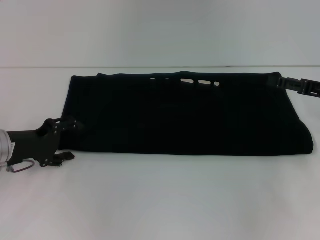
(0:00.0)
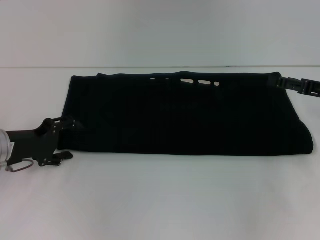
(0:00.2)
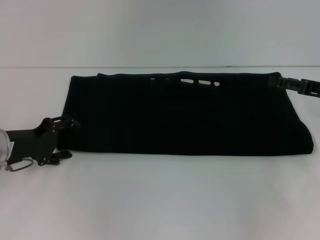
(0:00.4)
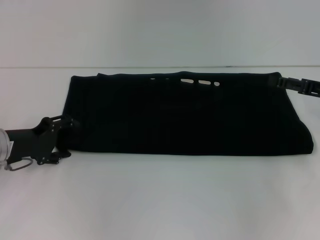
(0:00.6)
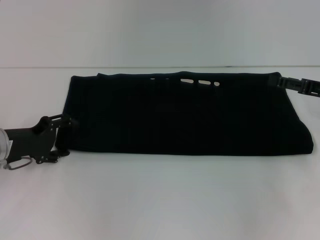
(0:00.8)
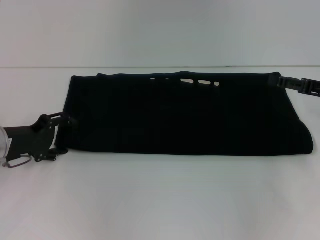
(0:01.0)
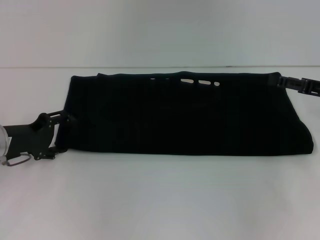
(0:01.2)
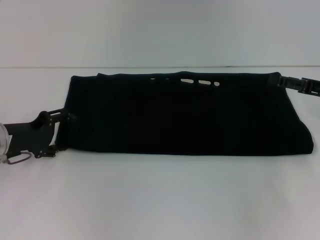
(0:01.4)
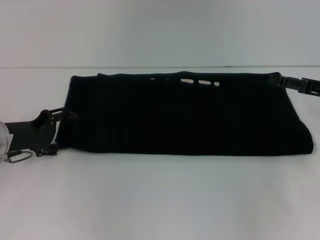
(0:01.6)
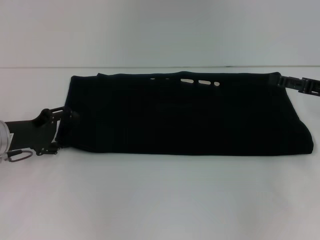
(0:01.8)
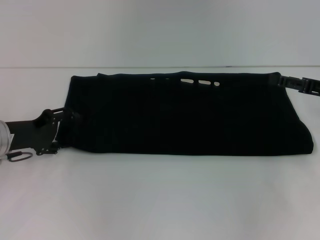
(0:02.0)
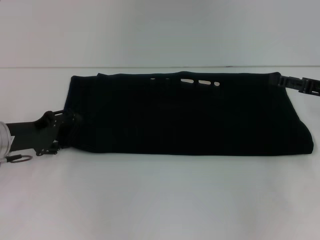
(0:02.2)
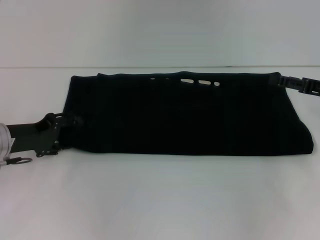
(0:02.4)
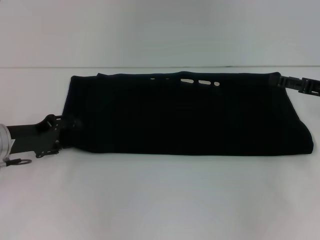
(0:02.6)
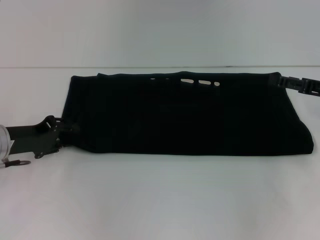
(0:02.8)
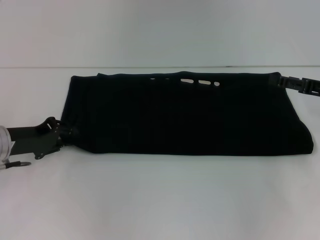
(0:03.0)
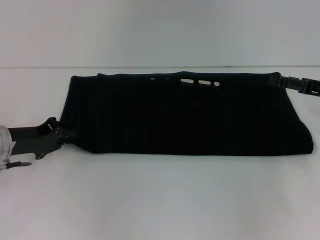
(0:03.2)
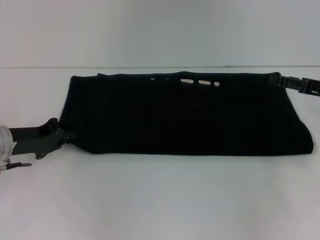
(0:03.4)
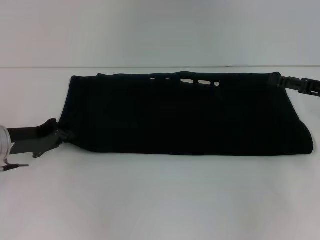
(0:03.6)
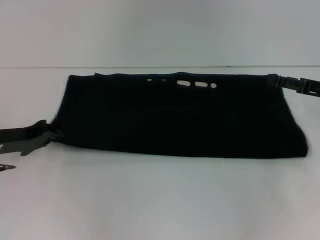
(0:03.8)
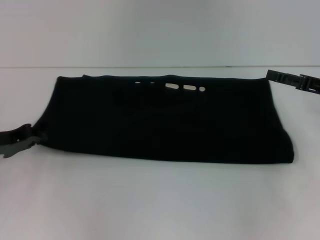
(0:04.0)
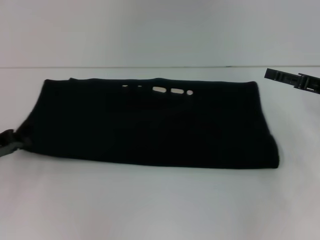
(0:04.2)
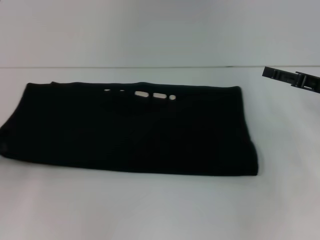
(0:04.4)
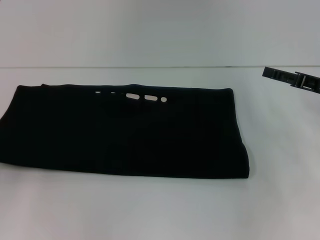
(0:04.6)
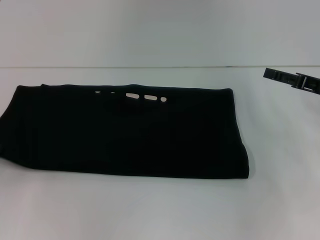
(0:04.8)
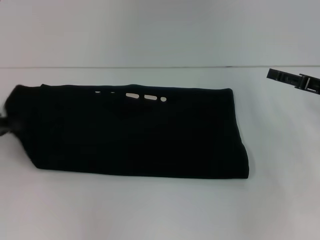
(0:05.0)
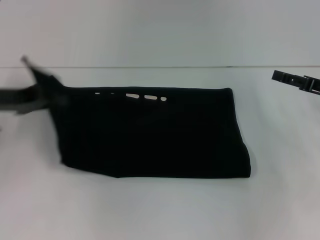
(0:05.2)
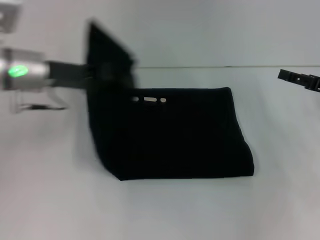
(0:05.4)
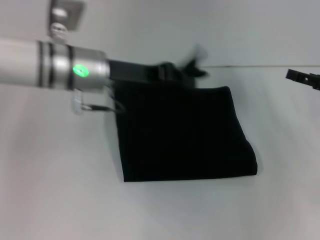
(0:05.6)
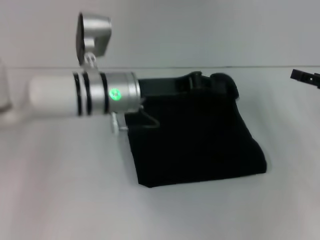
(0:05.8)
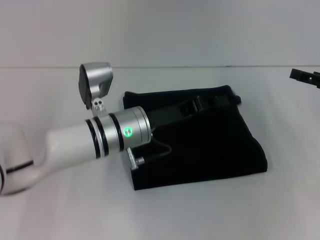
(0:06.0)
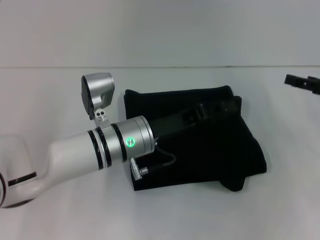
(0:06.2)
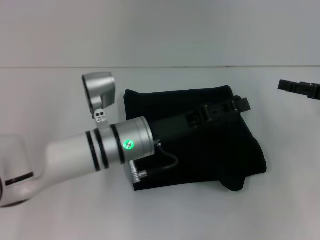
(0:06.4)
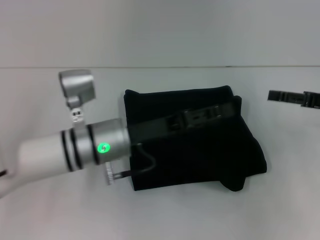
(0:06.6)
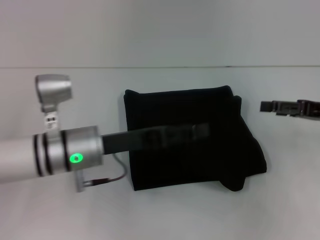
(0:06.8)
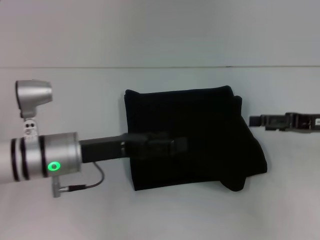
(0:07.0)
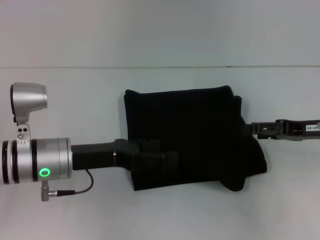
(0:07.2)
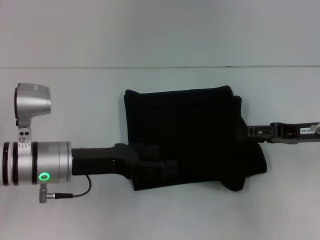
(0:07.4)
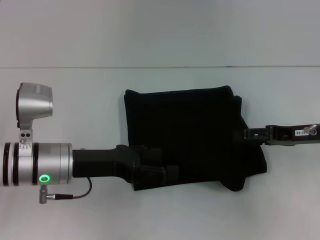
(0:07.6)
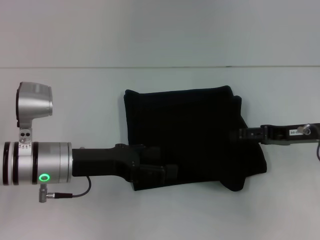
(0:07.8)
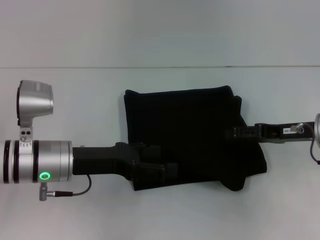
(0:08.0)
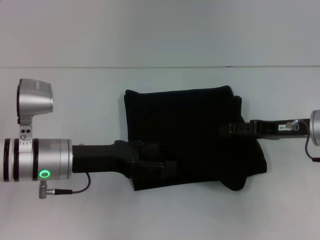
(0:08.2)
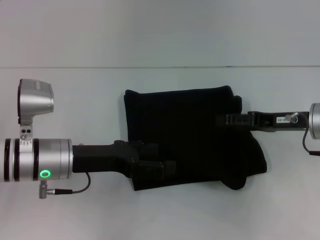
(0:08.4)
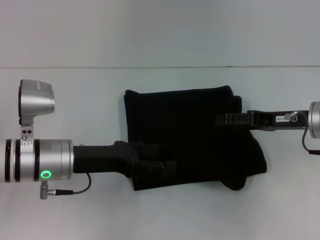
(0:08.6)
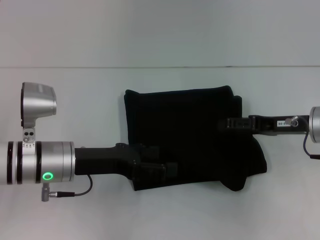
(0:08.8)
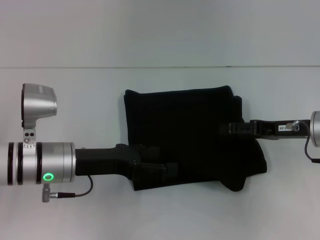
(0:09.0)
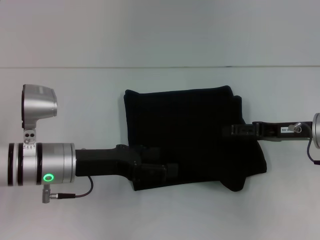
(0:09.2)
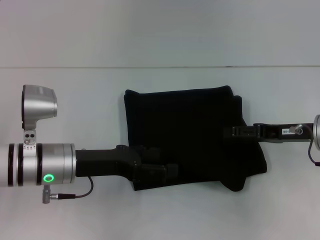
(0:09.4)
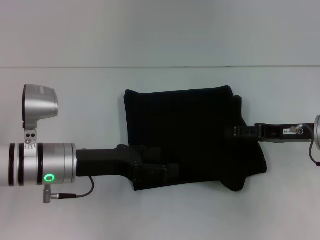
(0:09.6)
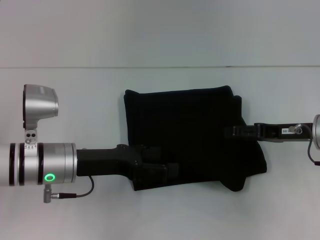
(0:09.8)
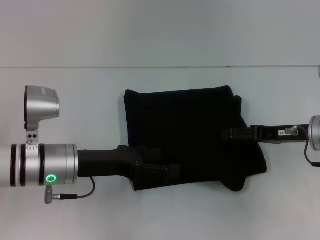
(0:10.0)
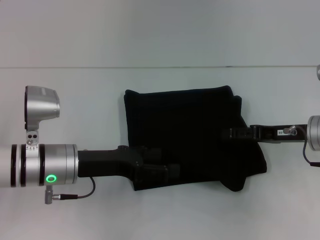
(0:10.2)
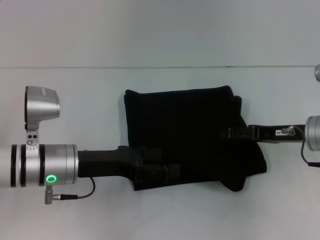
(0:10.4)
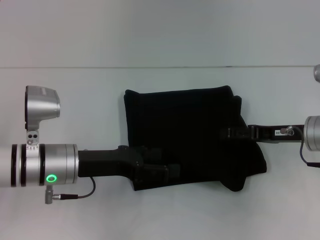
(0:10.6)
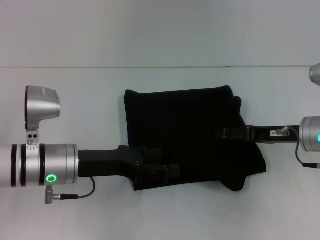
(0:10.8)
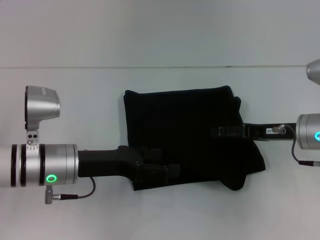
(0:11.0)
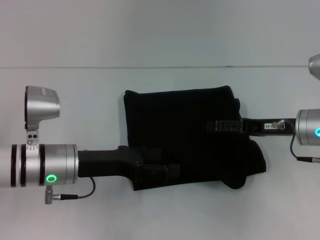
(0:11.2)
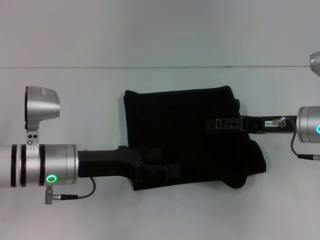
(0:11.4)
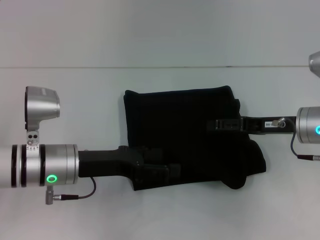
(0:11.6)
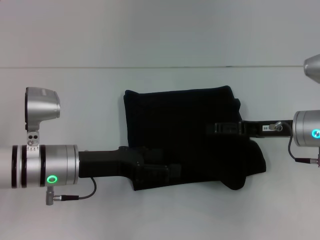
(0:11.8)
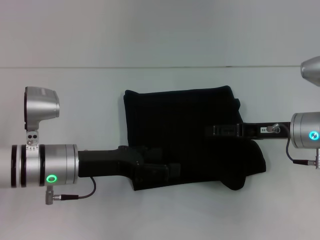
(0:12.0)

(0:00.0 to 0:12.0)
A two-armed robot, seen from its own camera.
Step, 0:00.0 - 0:06.4: Fold the clothes with your left hand.
0:00.0 - 0:01.6: The two grippers keep their place.
0:01.6 - 0:03.0: The grippers stay close to where they were, moving slightly.
0:03.0 - 0:04.4: The left gripper shifts roughly 10 cm to the left, and closes.
0:04.4 - 0:06.0: The left gripper goes some 30 cm to the right.
0:06.0 - 0:07.6: The left gripper moves to the left, roughly 10 cm, and opens. Meanwhile the right gripper shifts approximately 5 cm to the left.
0:07.6 - 0:09.0: There are only small adjustments of the grippers.
0:09.0 - 0:10.4: Both grippers stay about where they are.
0:10.4 - 0:12.0: There are only small adjustments of the grippers.

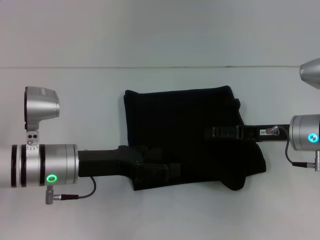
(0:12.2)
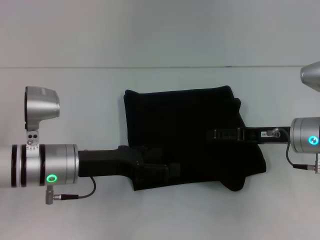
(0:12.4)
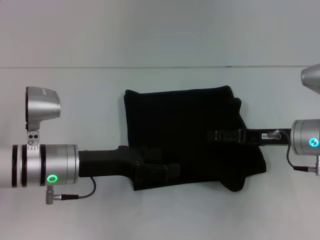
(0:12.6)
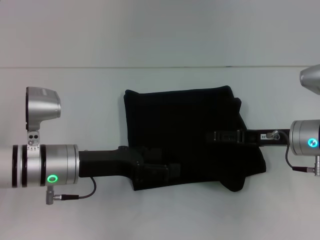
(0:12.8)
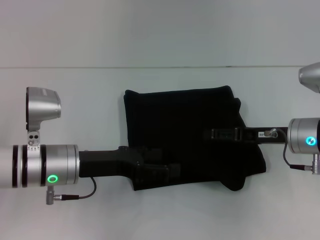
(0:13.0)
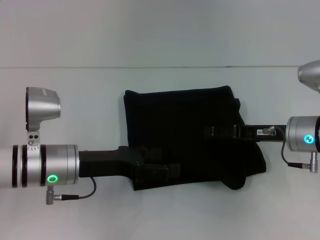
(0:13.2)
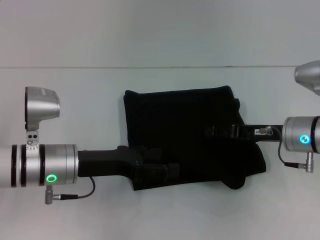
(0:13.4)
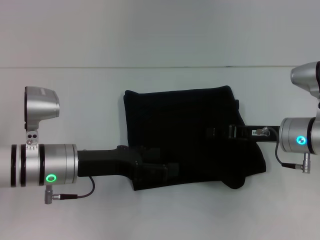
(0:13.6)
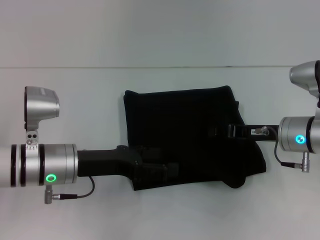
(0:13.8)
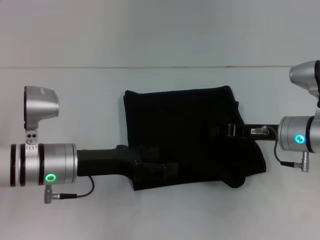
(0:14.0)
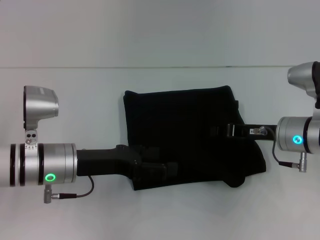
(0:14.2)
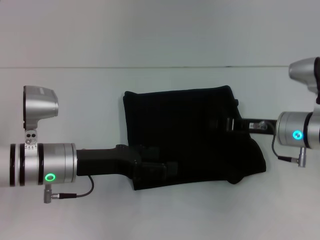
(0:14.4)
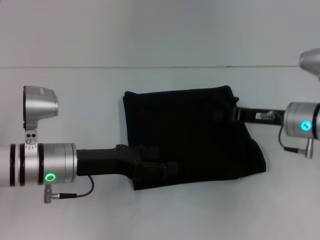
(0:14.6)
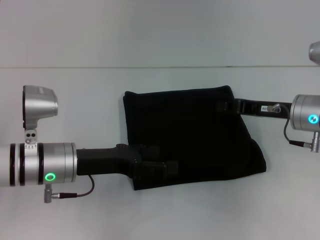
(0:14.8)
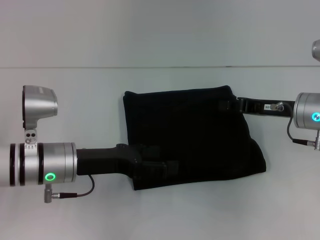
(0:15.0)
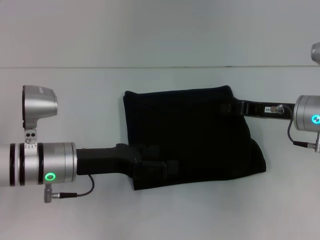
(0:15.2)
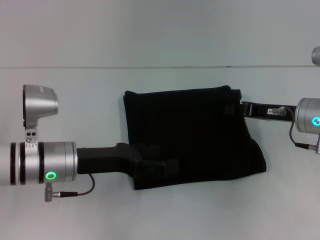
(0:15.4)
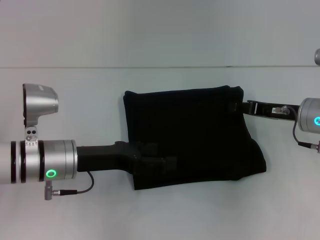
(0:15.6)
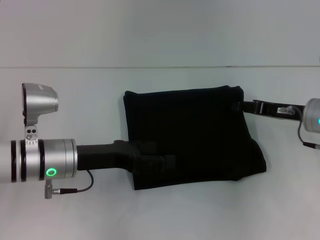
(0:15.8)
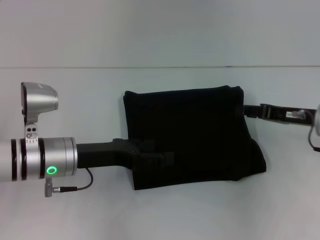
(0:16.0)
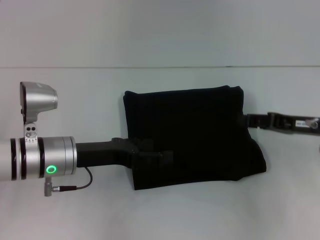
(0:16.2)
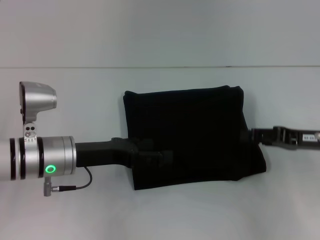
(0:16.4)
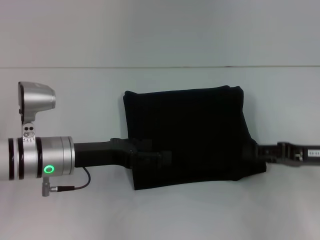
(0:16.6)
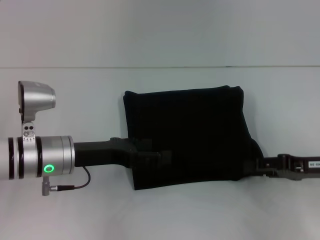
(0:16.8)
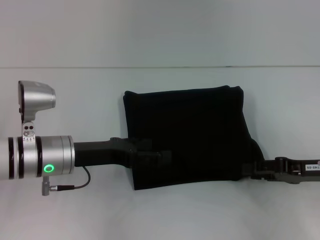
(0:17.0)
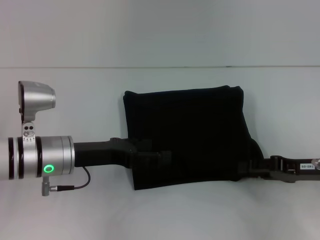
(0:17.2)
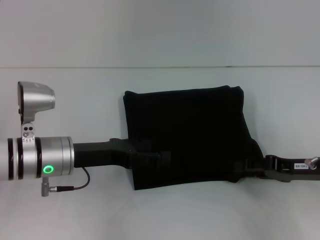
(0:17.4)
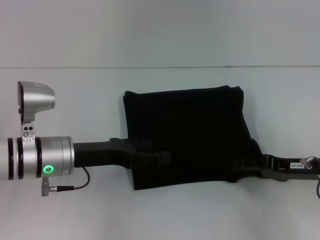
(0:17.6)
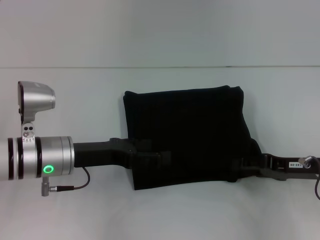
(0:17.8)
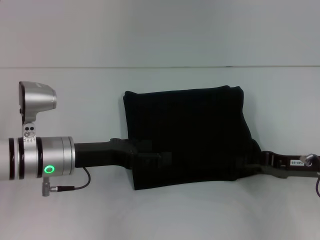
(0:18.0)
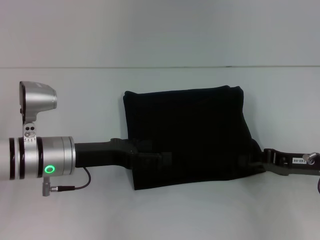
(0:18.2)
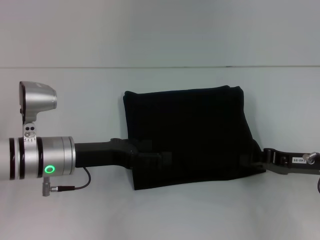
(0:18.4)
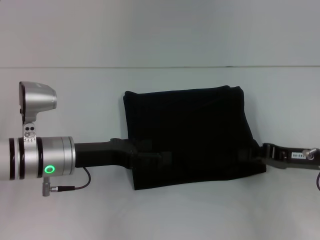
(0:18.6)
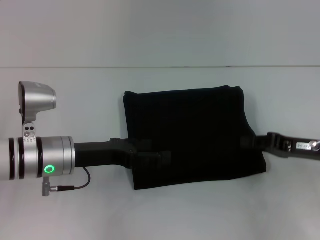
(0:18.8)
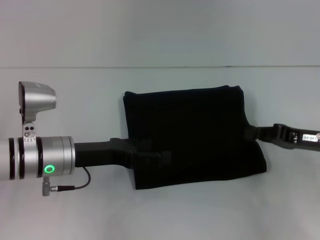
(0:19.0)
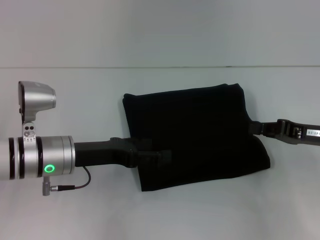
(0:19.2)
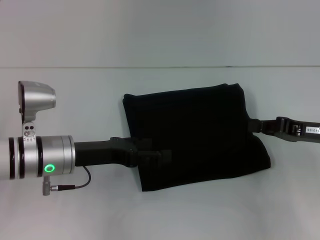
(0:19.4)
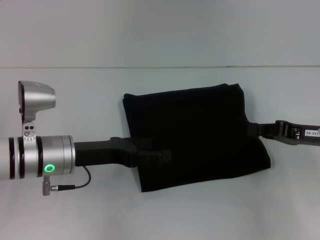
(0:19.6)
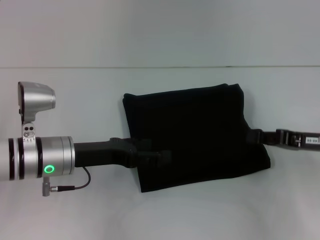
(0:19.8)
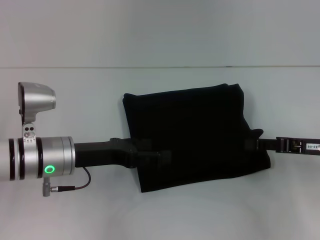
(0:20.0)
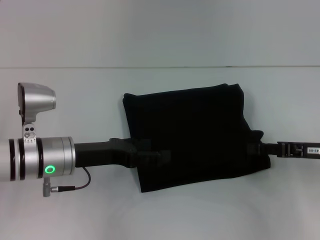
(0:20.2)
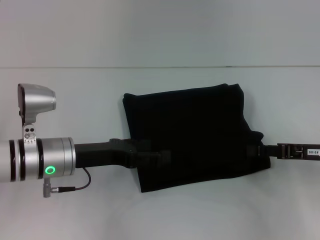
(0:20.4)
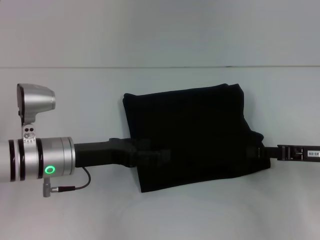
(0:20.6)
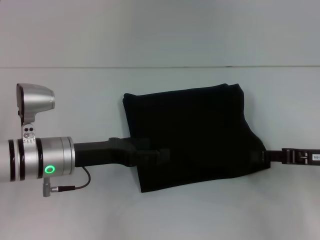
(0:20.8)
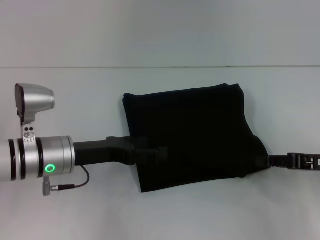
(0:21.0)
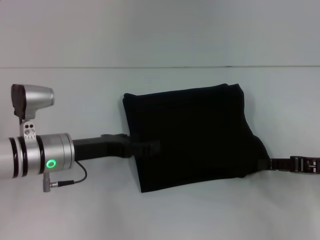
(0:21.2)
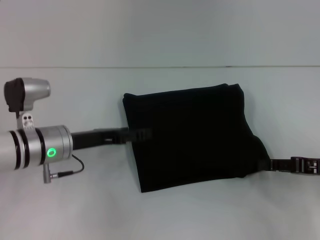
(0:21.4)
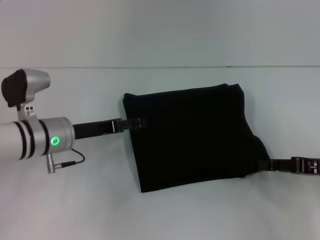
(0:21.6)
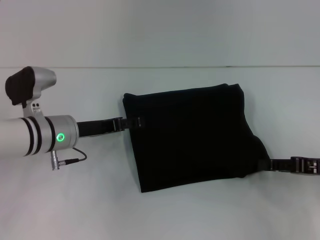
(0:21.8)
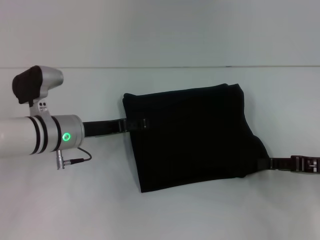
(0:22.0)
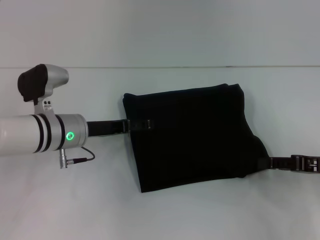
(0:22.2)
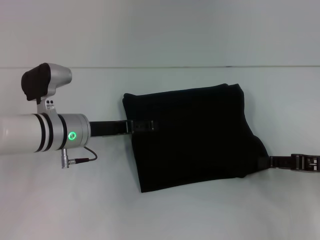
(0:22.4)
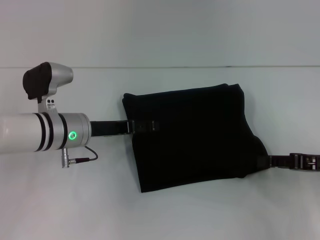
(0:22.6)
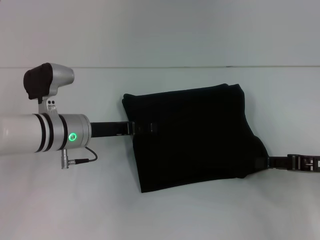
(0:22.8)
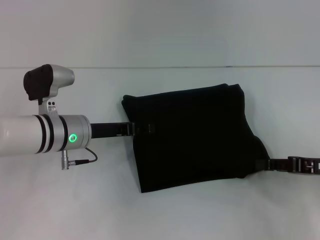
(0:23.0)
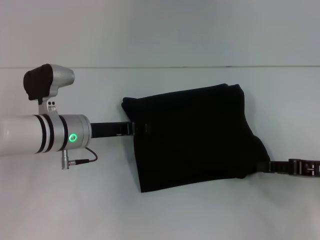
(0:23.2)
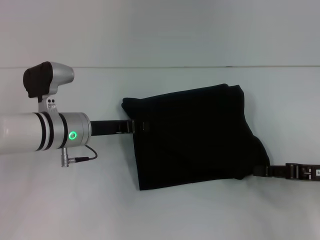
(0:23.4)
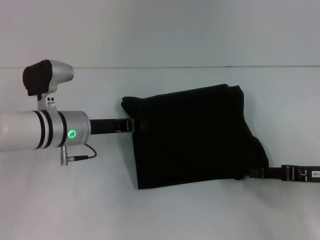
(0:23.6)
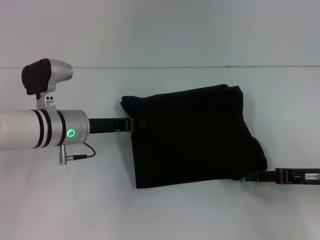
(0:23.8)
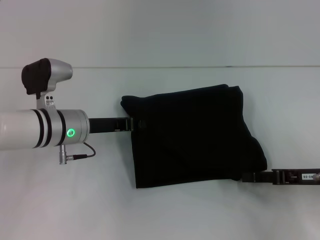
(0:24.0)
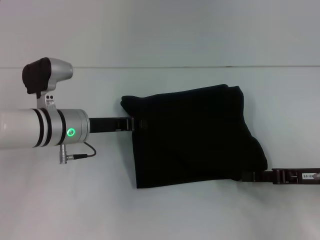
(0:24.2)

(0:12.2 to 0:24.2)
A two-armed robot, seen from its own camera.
0:12.2 - 0:13.8: The right gripper closes its fingers.
0:13.8 - 0:15.2: The grippers make only small movements.
0:15.2 - 0:16.6: The right gripper shifts about 10 cm backward and to the right, and opens its fingers.
0:16.6 - 0:21.2: The grippers stay close to where they were, moving slightly.
0:22.6 - 0:24.2: The left gripper closes.
